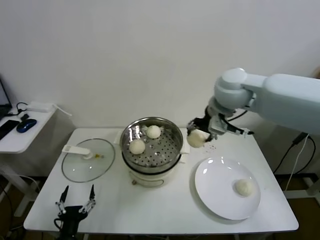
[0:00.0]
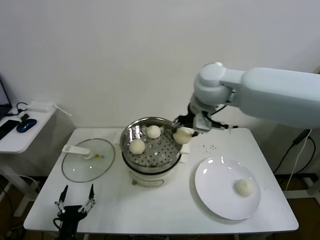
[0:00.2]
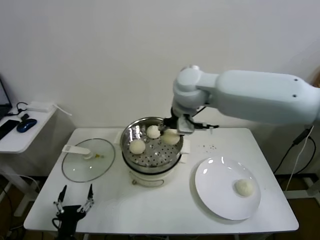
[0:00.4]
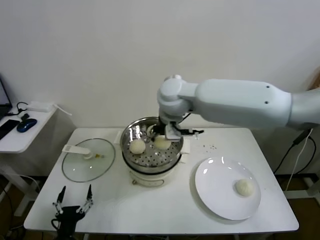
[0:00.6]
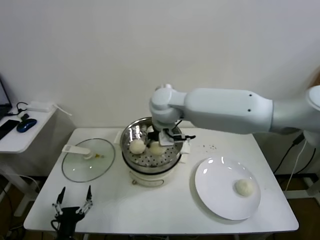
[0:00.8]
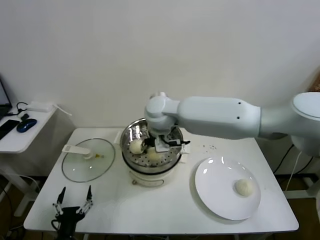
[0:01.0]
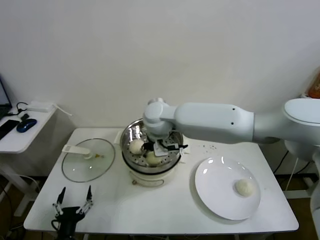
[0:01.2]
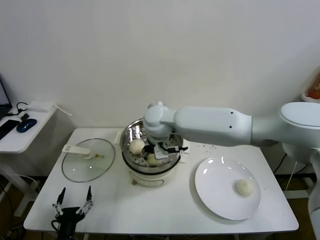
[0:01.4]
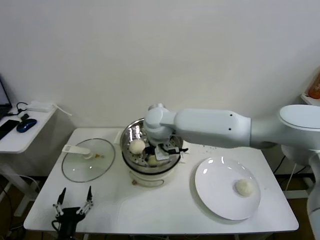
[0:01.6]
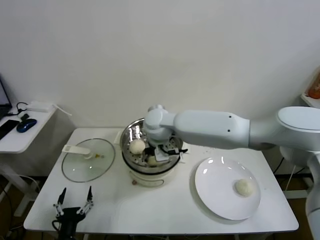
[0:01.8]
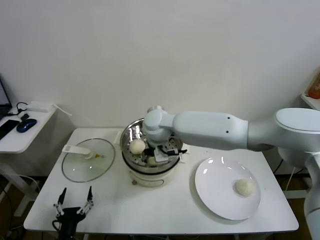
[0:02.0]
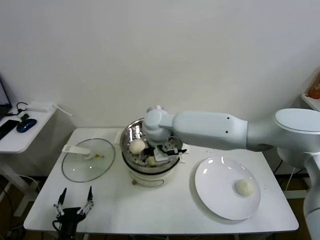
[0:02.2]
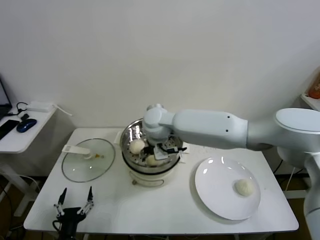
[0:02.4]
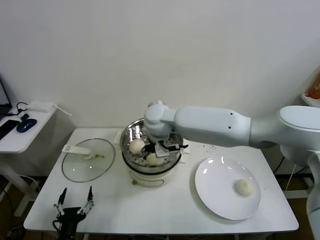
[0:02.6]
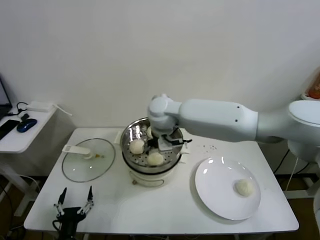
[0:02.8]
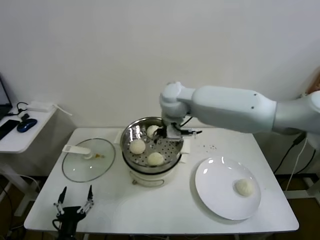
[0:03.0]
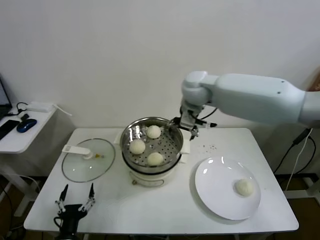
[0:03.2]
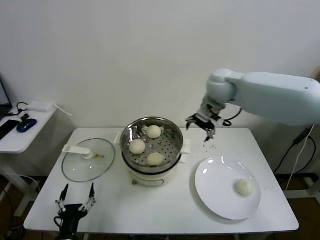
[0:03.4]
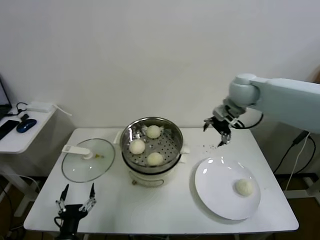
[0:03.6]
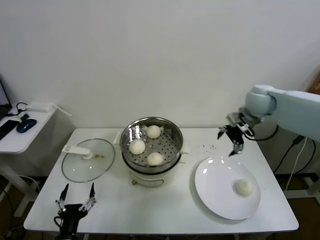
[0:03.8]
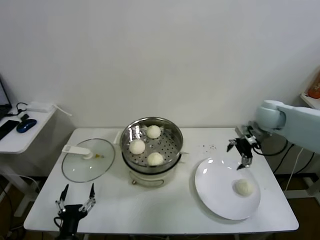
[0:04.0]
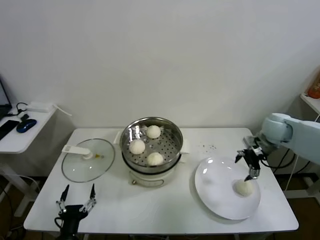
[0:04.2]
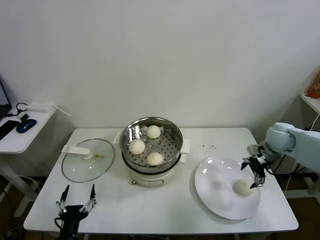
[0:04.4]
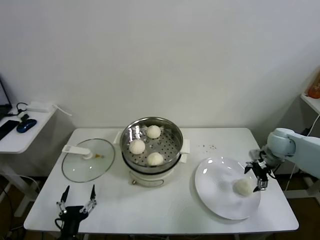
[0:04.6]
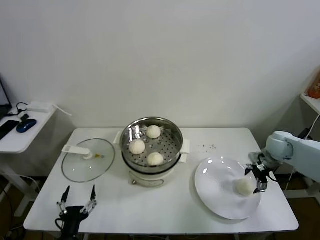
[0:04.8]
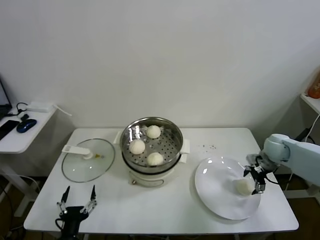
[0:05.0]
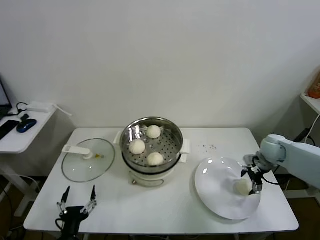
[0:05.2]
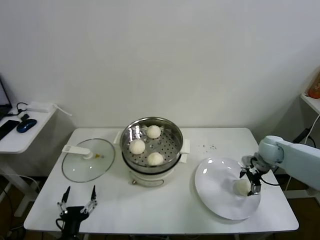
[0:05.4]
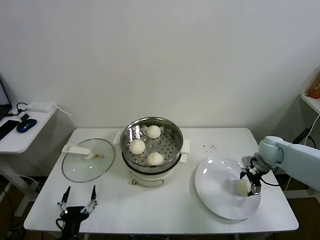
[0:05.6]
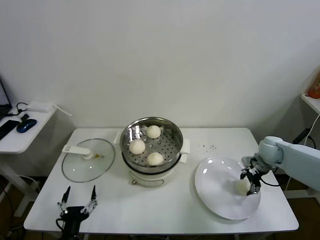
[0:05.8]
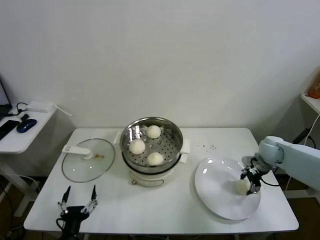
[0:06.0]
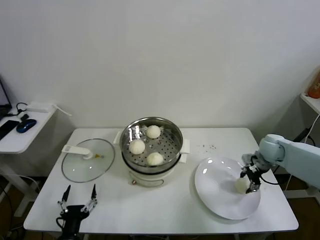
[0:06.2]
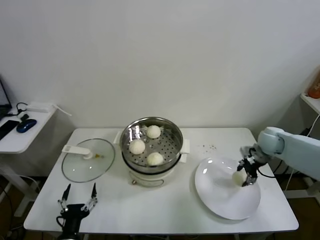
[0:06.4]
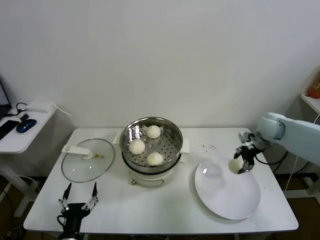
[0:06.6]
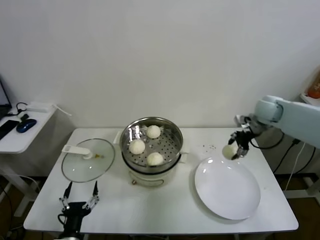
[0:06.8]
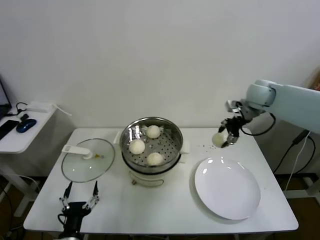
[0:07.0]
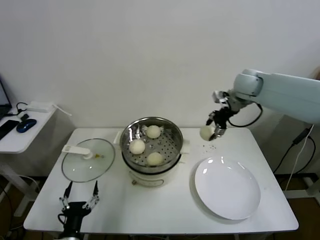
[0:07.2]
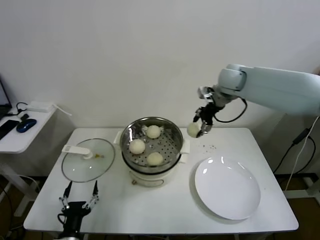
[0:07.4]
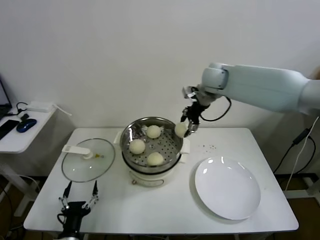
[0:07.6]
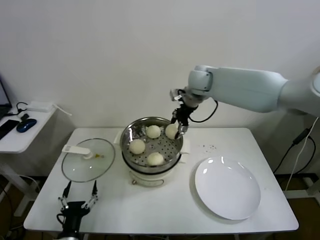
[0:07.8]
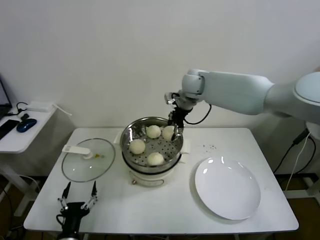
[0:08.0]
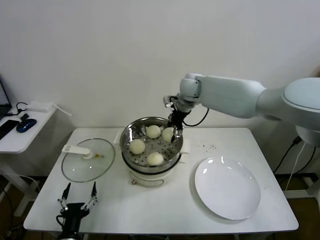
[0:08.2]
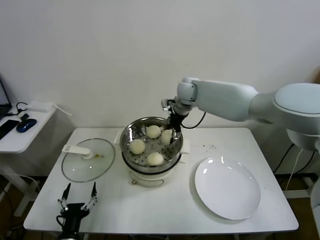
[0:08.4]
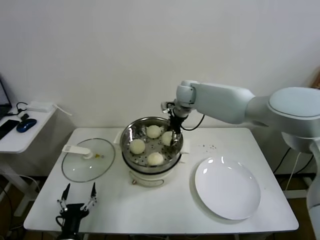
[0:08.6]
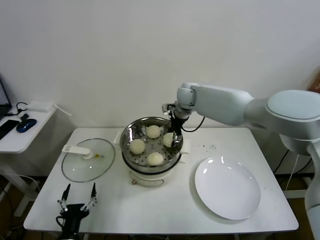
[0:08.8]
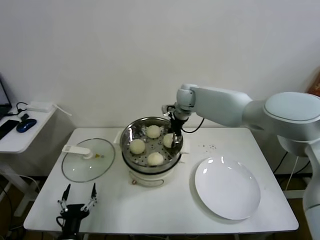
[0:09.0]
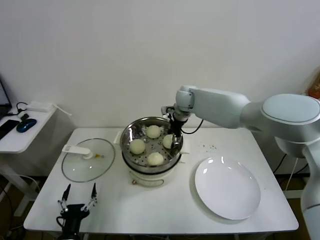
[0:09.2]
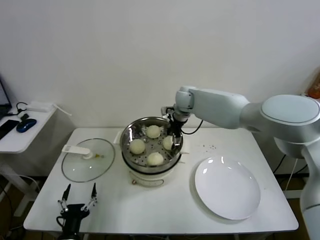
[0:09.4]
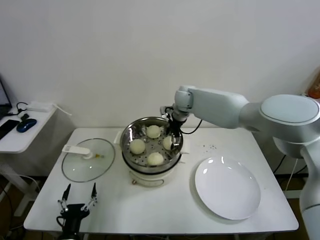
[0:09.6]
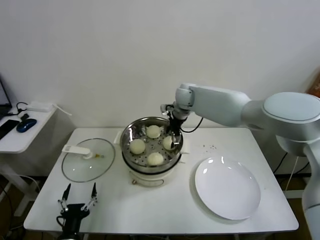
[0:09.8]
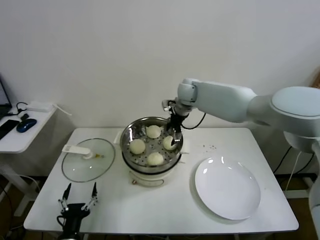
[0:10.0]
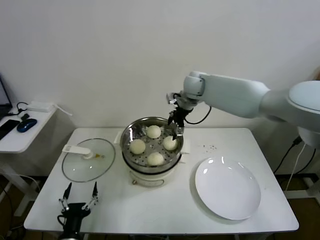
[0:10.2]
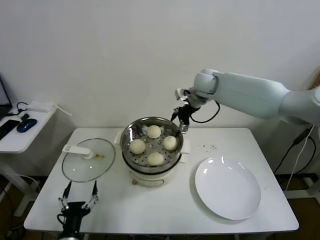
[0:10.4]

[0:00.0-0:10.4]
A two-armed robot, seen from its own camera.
Task of the whole recording: take steamed baozi put them in steamer.
Step, 0:00.0 to 0:02.2: Place the baozi on the steamer with right gripper.
Step, 0:02.4 to 0:05.6: Grasp the baozi in the plate with right gripper.
Step, 0:05.8 to 0:09.8: Place the baozi on the steamer with right gripper.
0:00.0 to 0:01.4: The right gripper heads to the left and downward, covering approximately 20 cm.
0:01.4 to 0:03.0: The right gripper goes approximately 5 cm upward, and opens its fingers.
0:03.0 to 0:04.4: The right gripper is displaced to the right by approximately 35 cm.
0:04.4 to 0:06.0: The right gripper is displaced downward by roughly 5 cm, and closes.
0:06.0 to 0:07.4: The right gripper shifts some 30 cm upward, to the left and forward.
0:07.4 to 0:09.0: The right gripper goes about 15 cm to the left and downward.
0:09.0 to 0:10.4: The right gripper travels upward by approximately 5 cm, and opens.

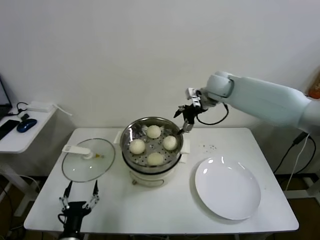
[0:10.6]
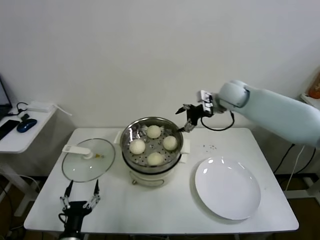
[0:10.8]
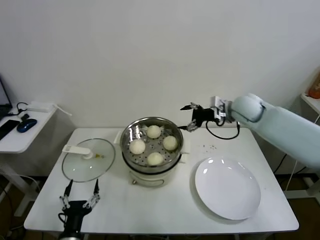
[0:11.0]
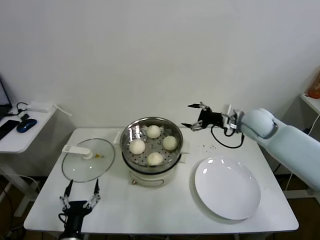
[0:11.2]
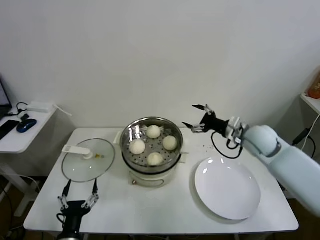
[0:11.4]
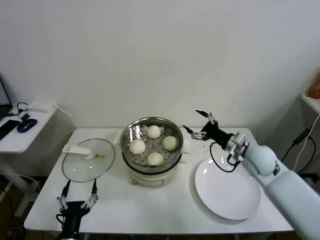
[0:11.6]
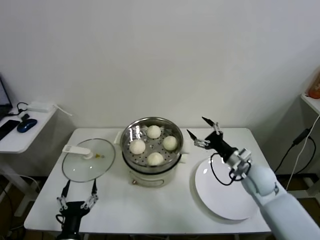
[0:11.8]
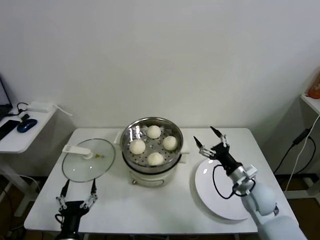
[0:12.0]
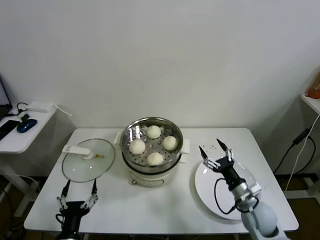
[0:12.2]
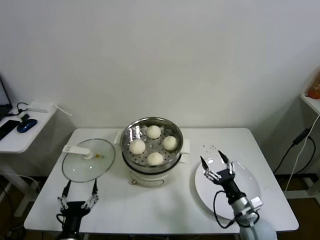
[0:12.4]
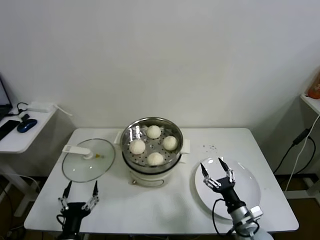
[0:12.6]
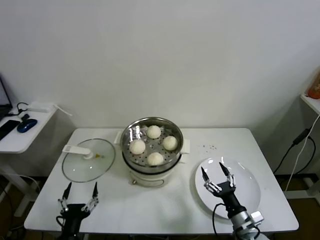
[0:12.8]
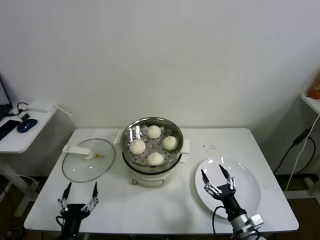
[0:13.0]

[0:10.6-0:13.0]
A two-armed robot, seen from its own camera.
Task of the whole recording: take steamed baozi put them in steamer.
0:10.6 to 0:11.8: The right gripper is displaced backward, downward and to the right by some 30 cm.
0:11.8 to 0:13.0: The right gripper shifts roughly 25 cm backward and downward.

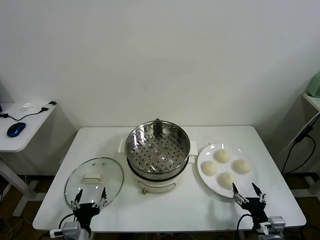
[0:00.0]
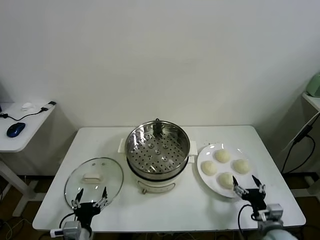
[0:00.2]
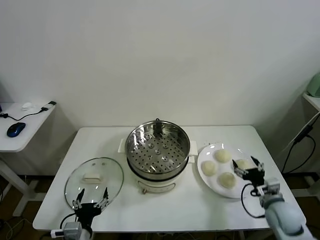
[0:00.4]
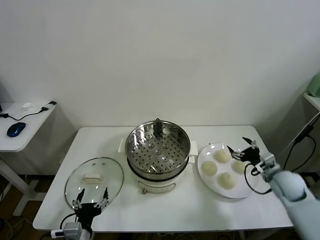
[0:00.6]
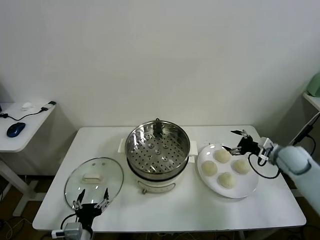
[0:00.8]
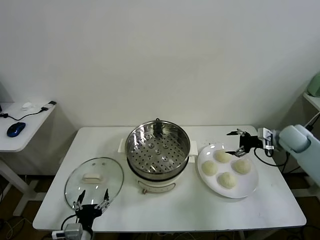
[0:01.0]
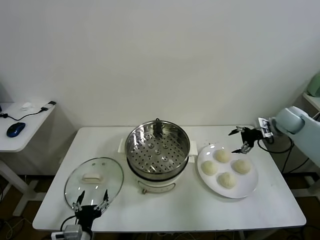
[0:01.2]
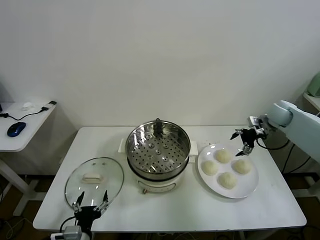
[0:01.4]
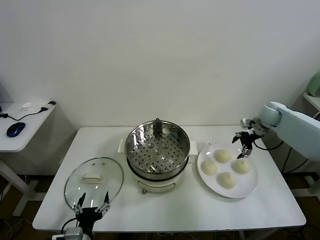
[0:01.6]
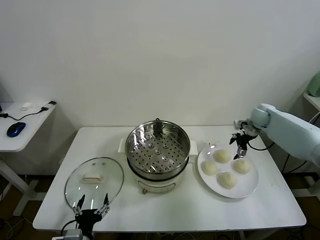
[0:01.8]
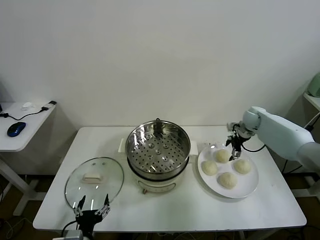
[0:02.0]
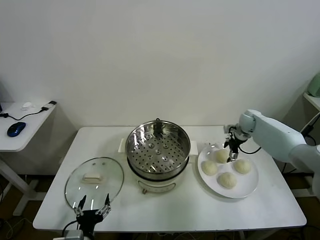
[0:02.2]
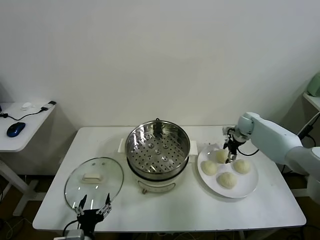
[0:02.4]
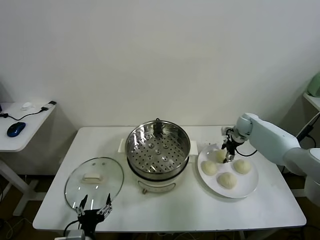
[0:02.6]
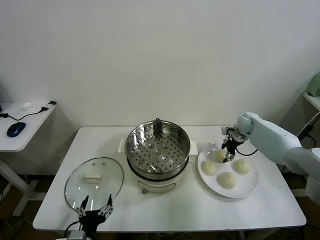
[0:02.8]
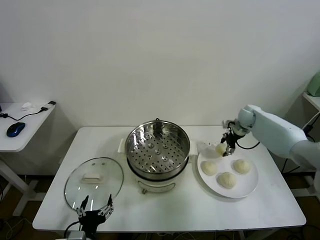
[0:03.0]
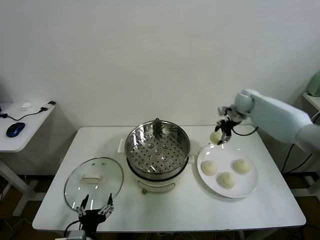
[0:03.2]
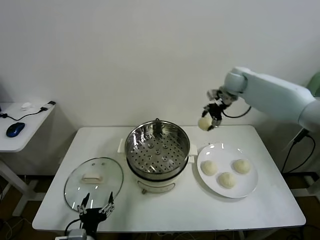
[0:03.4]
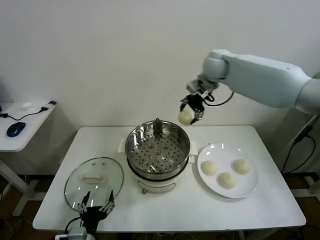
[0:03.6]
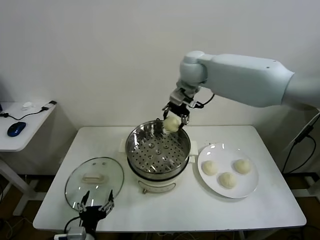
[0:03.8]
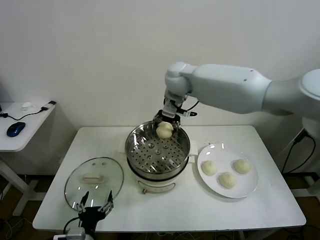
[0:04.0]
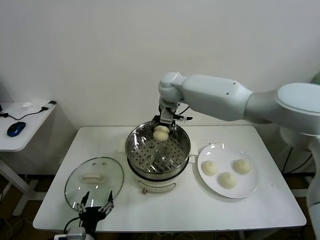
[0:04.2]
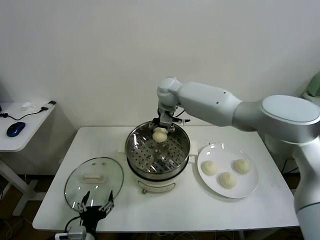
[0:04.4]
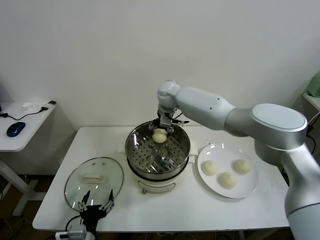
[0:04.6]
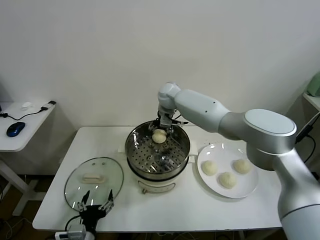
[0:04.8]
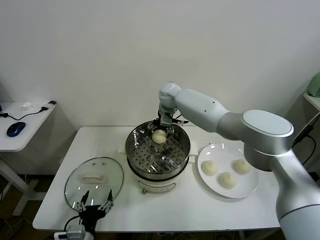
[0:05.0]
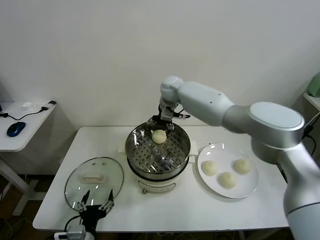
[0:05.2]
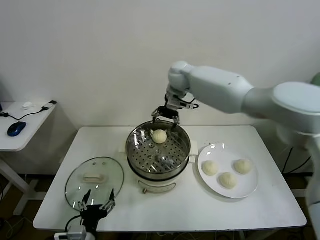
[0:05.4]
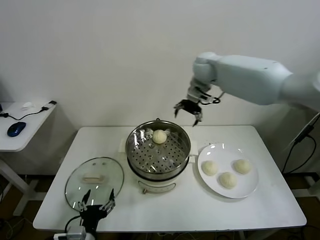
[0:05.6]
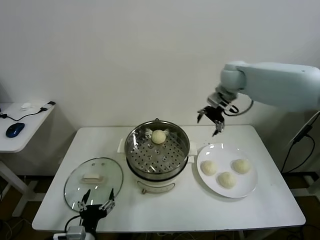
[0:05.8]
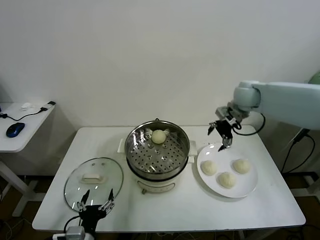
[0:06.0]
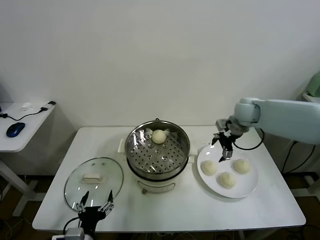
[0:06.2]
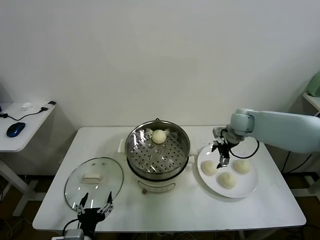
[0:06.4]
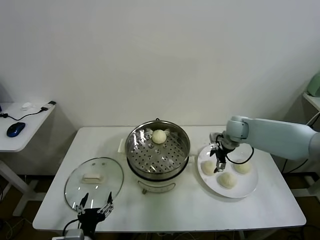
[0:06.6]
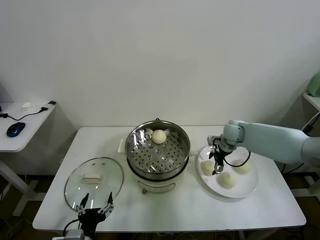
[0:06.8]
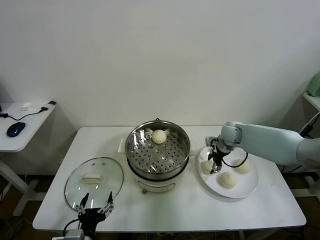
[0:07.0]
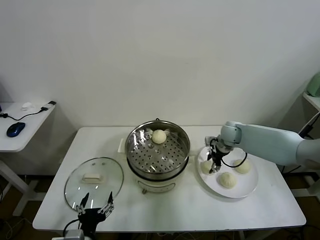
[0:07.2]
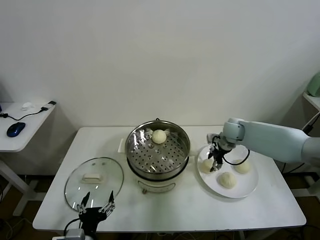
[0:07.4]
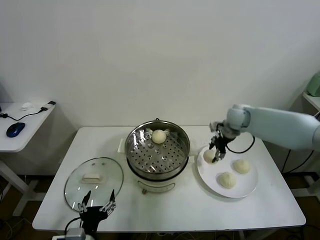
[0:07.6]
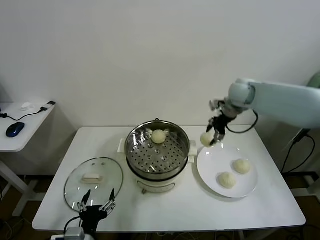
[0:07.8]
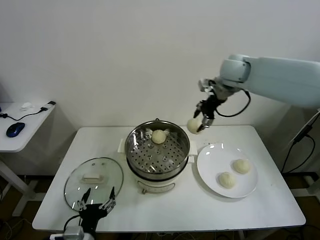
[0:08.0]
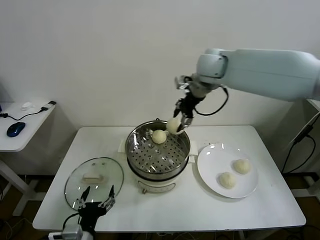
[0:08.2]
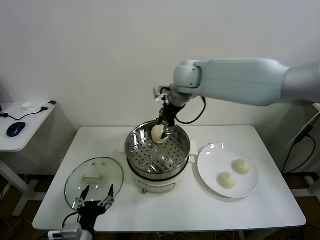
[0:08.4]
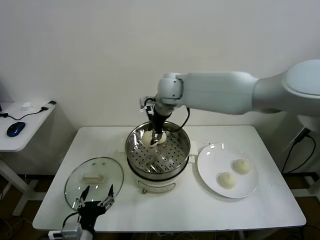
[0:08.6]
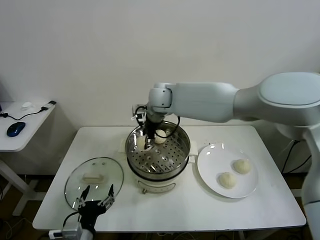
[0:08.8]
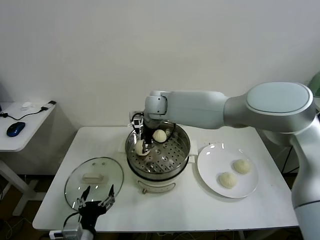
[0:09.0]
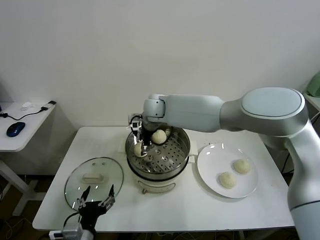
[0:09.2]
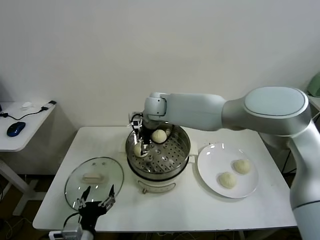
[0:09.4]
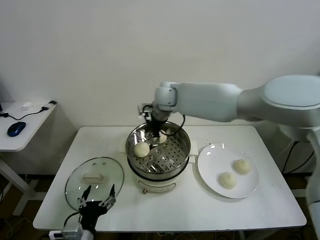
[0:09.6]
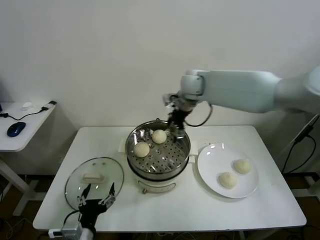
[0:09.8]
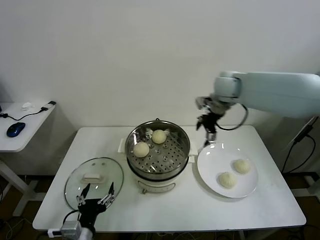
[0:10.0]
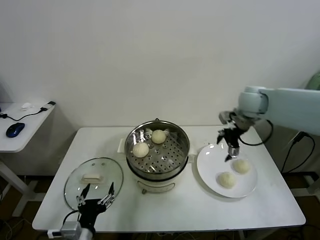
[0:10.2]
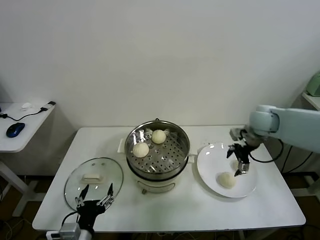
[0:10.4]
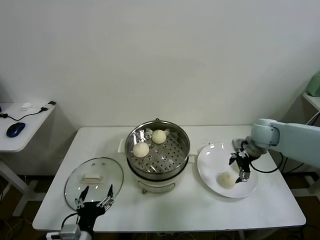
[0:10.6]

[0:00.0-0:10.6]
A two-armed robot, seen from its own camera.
Task of the whole recording: take steamed baozi put them in steamer.
Step, 0:00.0 to 0:02.6: Grasp the baozi in the plate with right gripper.
Step, 0:03.0 to 0:05.0: Place the baozi on the steamer with right gripper.
Step, 0:05.2 to 0:07.0: Grasp the baozi in the plate with right gripper.
Step, 0:07.4 to 0:09.4: Place the baozi on the steamer with right gripper.
0:01.6 to 0:03.0: The right gripper goes roughly 5 cm to the left, and closes its fingers.
0:03.0 to 0:04.6: The right gripper moves to the left, some 35 cm.
0:04.6 to 0:06.0: The right gripper moves to the right, approximately 25 cm, and opens its fingers.
0:06.0 to 0:07.6: The right gripper goes roughly 10 cm downward, and closes its fingers.
0:07.6 to 0:09.0: The right gripper travels to the left by some 30 cm.
0:09.0 to 0:10.6: The right gripper is displaced to the right by some 35 cm, and opens.
